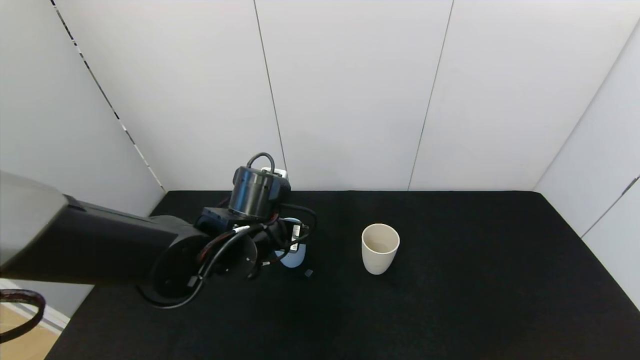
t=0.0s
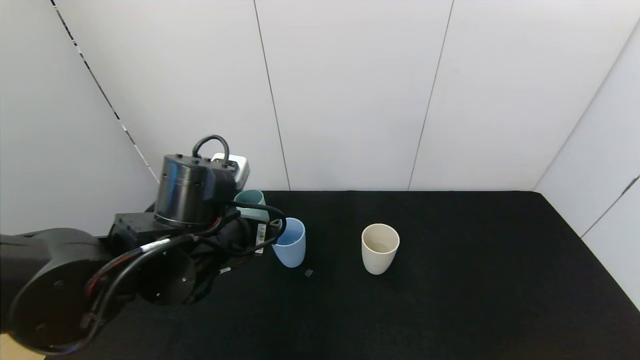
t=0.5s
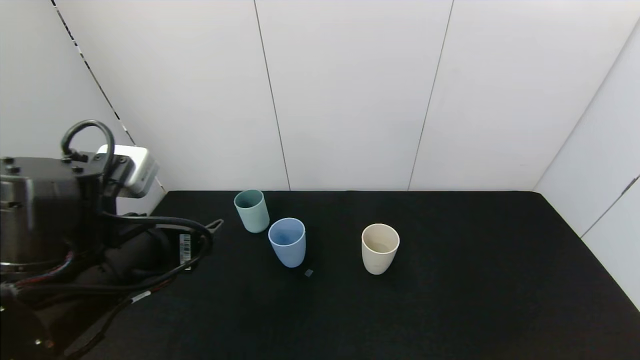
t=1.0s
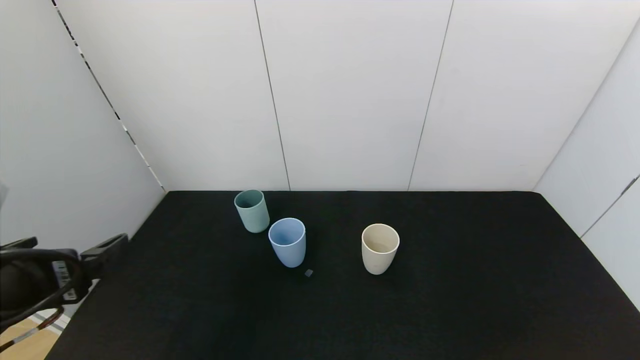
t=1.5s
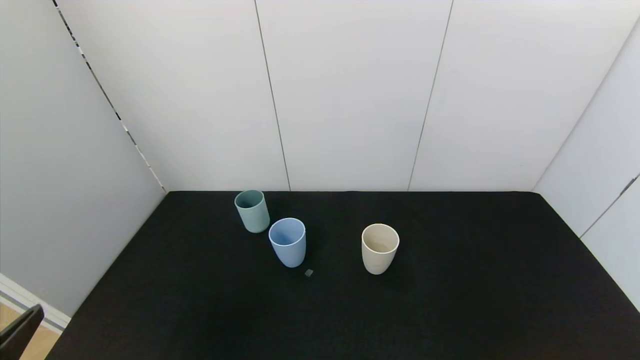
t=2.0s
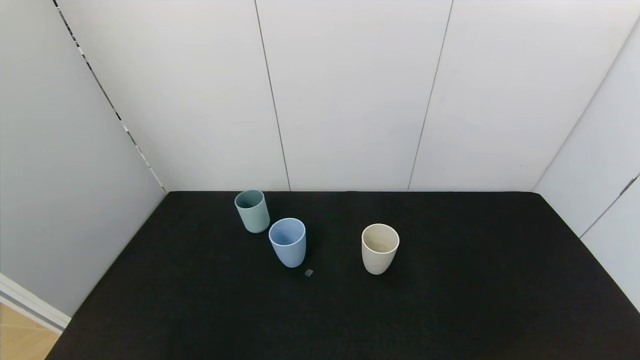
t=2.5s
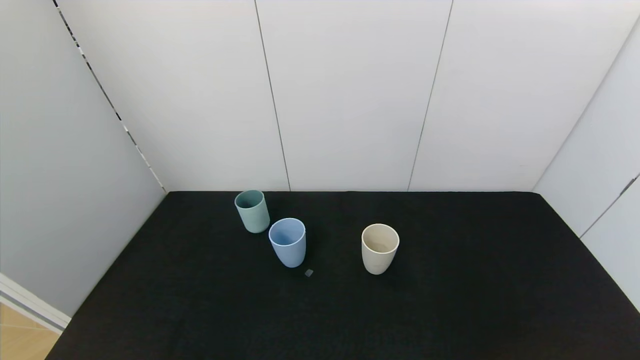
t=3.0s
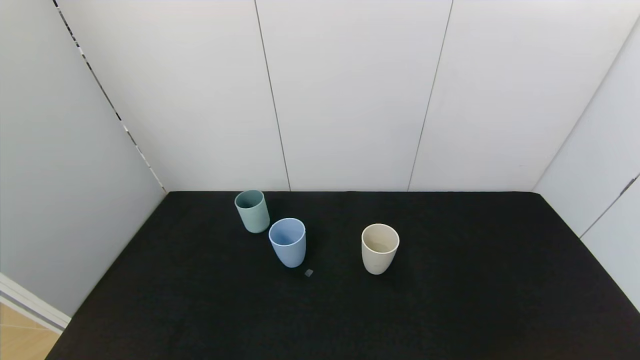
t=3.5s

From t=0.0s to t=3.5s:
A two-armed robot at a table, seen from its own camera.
Task of the whole recording: use the gripper to pour the water into the other two cups on black table.
From t=0.0s to t=2.0s: The left gripper heads backward and to the left, covering roughly 35 cm.
